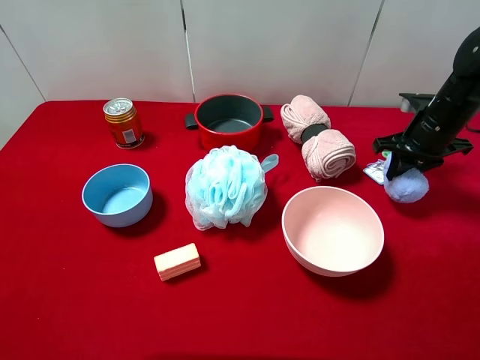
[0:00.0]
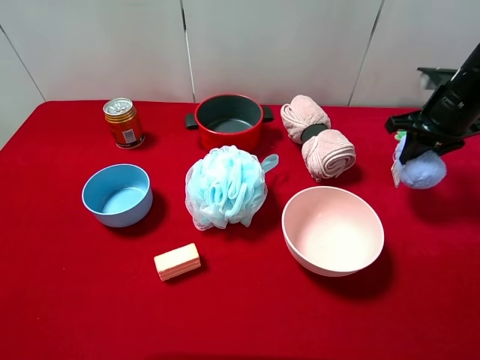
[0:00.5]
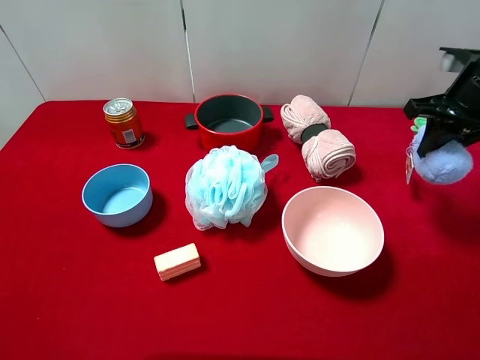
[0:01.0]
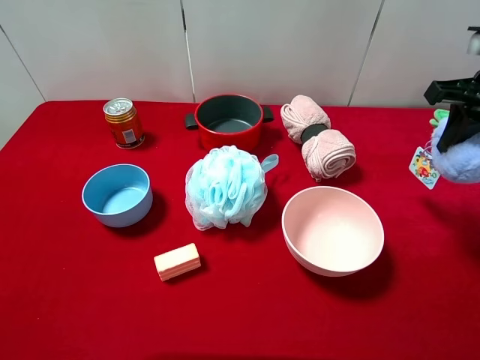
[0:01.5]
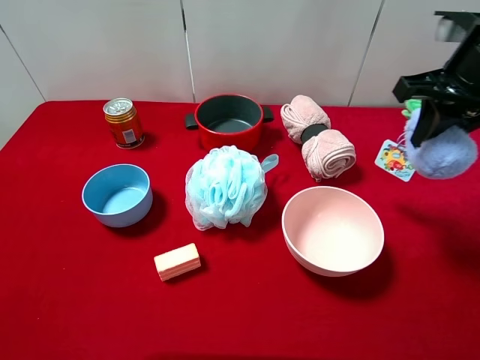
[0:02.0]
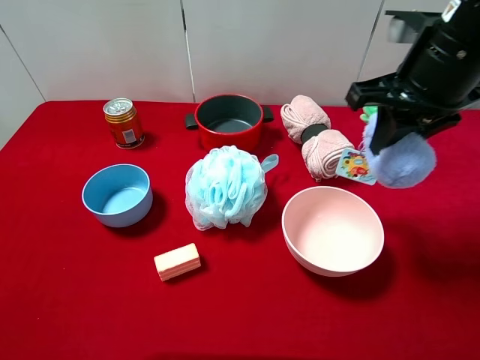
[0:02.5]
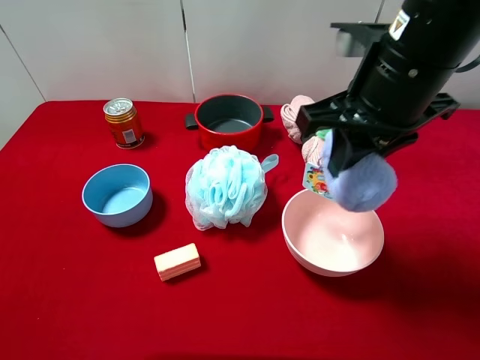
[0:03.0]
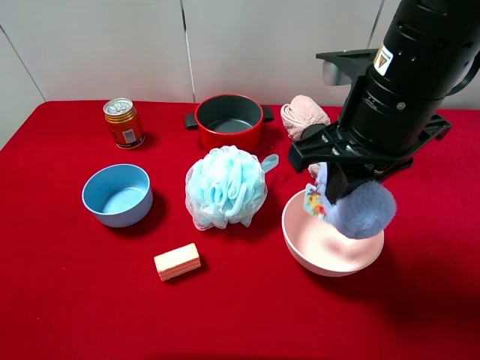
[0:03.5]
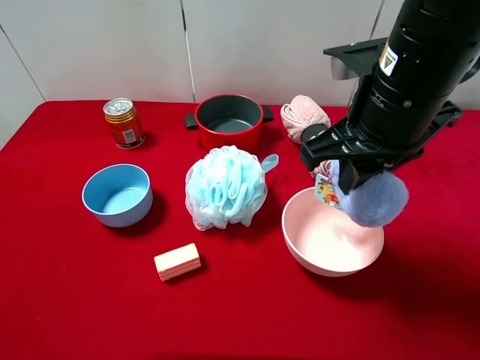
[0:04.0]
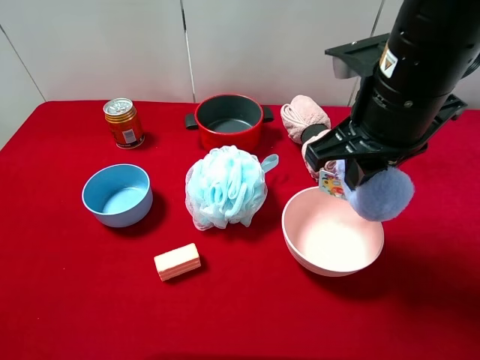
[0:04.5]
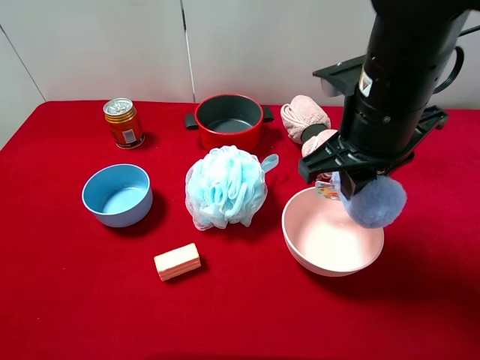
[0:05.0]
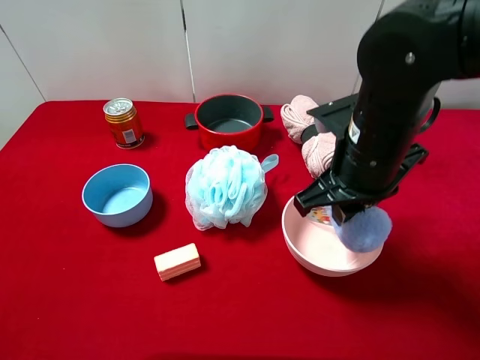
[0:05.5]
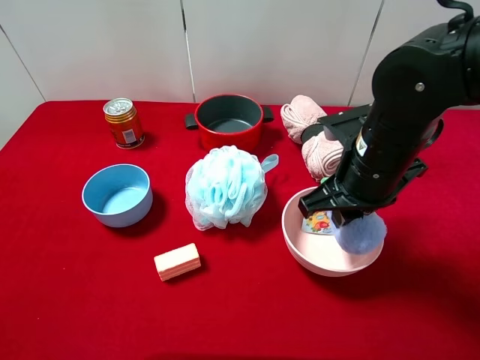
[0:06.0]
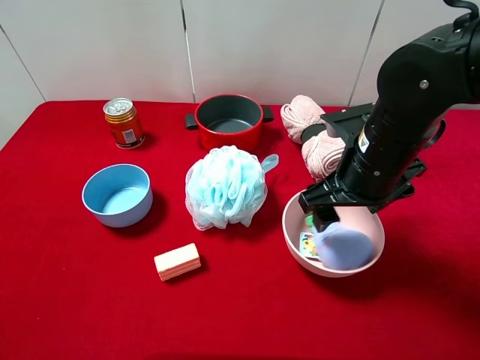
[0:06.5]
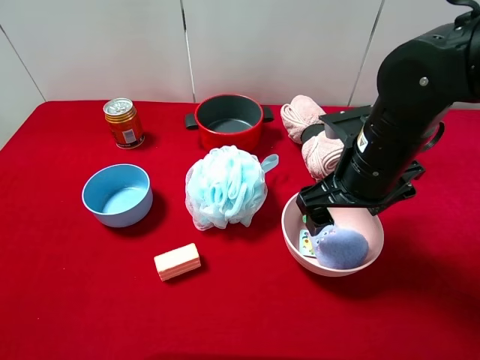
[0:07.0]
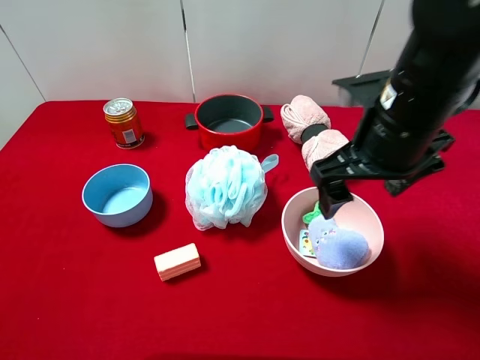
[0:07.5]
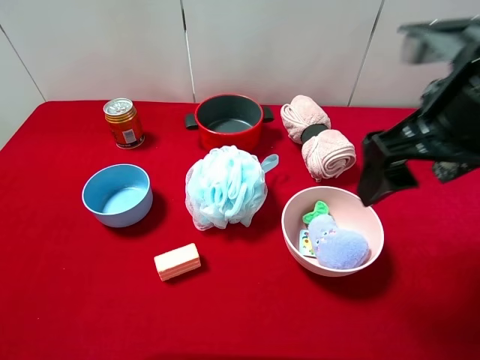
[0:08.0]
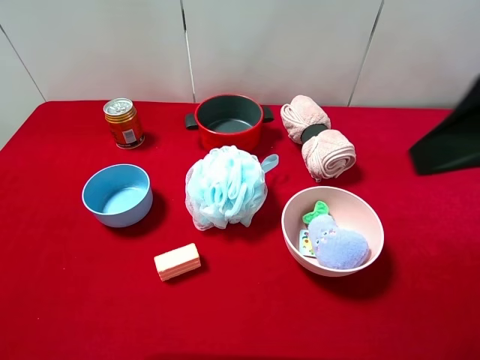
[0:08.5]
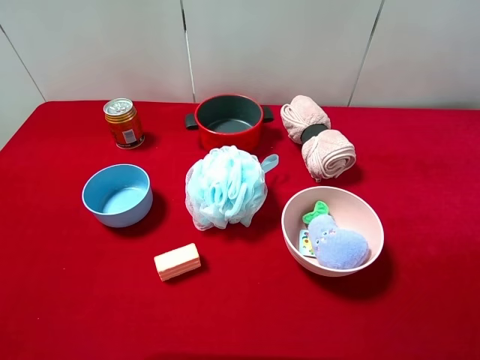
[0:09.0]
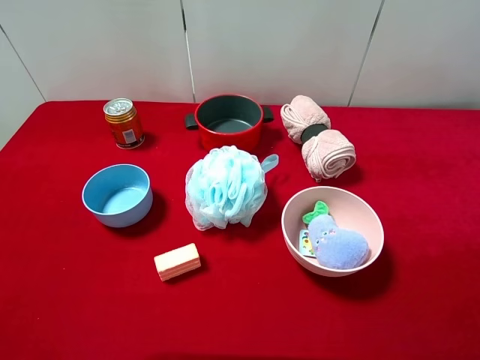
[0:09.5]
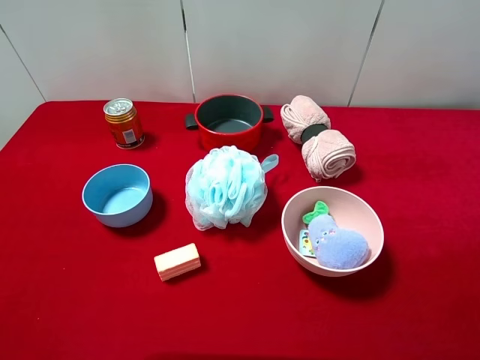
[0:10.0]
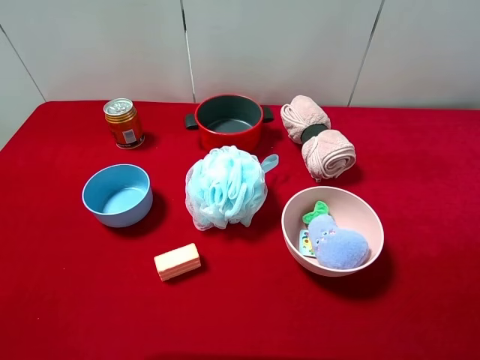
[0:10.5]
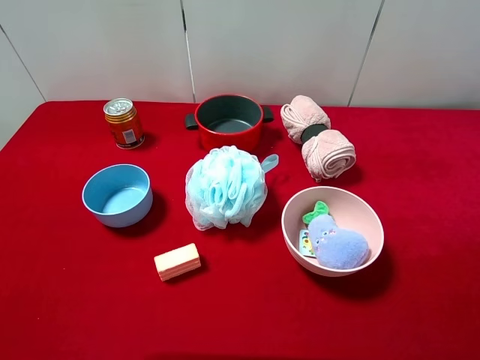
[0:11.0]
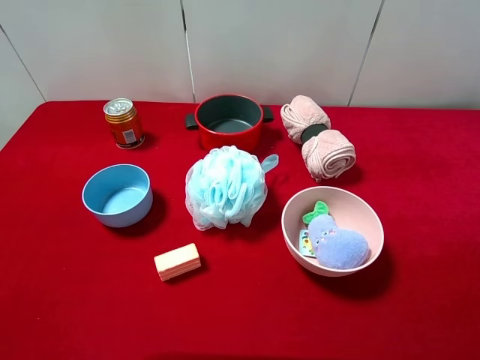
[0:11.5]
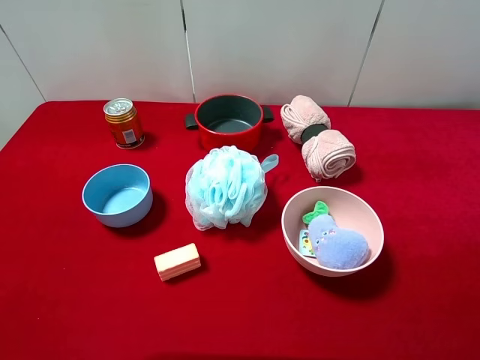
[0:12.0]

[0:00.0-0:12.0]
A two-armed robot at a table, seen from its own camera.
Task of the whole recording: pick up an item with a gripper and place it in a random container on the desktop.
0:00.0 to 0:02.0: The right gripper heads upward and backward, covering roughly 15 cm.
0:02.0 to 0:04.0: The right gripper moves to the left and backward, roughly 15 cm.
0:04.0 to 0:06.0: The right gripper moves downward, approximately 10 cm.
0:06.0 to 0:08.0: The right gripper travels upward and backward by roughly 15 cm, and opens its fingers.
0:08.0 to 0:10.0: The right gripper moves backward and to the right, roughly 20 cm.

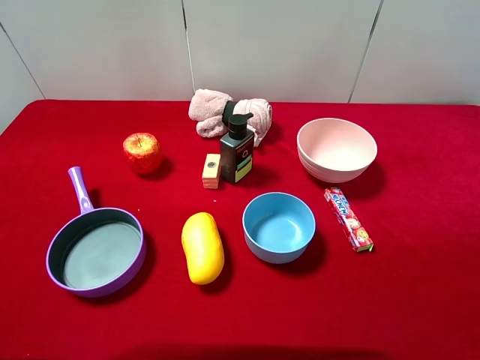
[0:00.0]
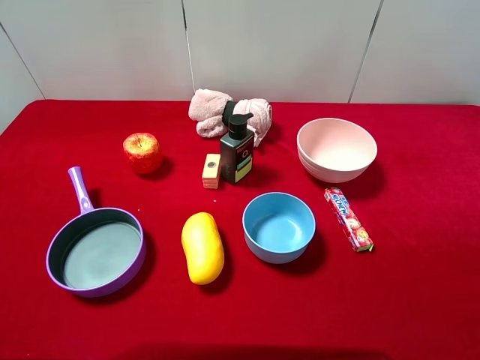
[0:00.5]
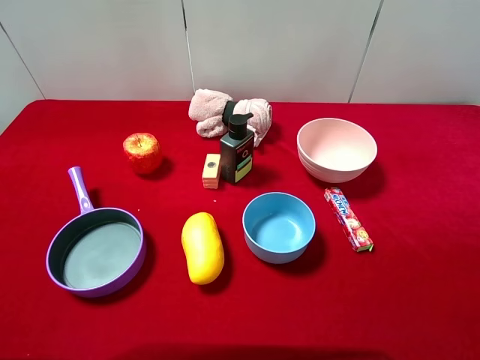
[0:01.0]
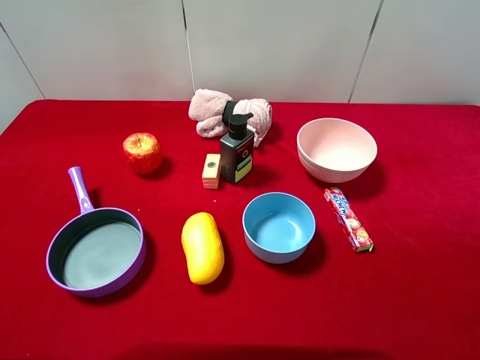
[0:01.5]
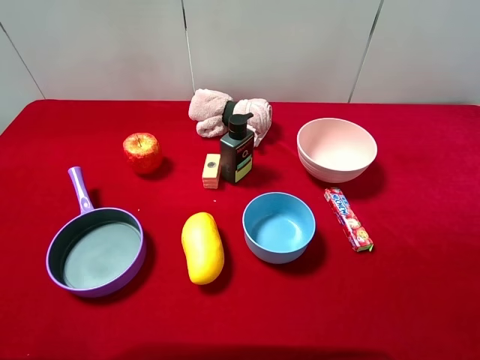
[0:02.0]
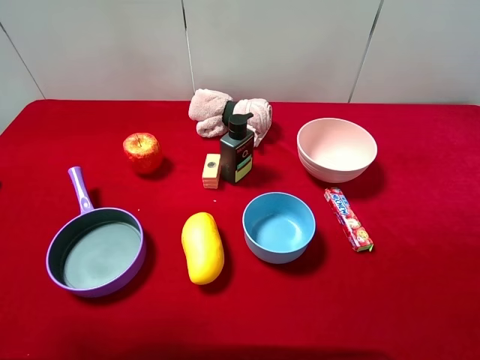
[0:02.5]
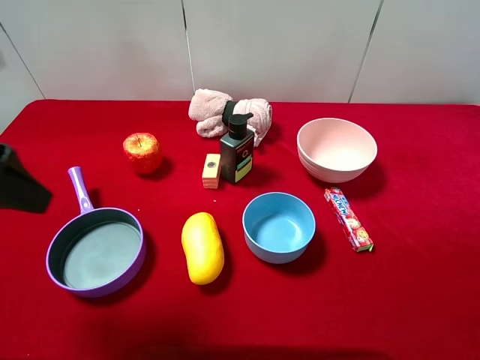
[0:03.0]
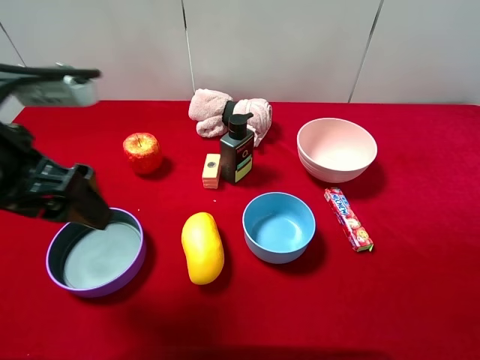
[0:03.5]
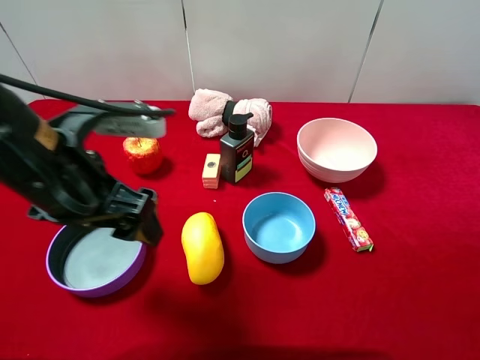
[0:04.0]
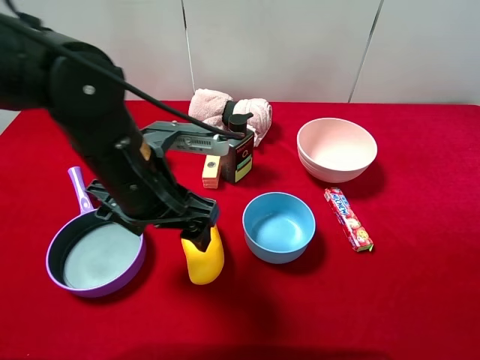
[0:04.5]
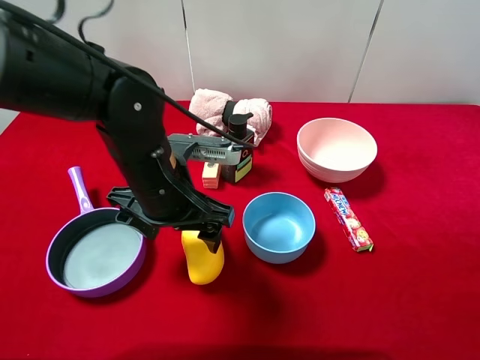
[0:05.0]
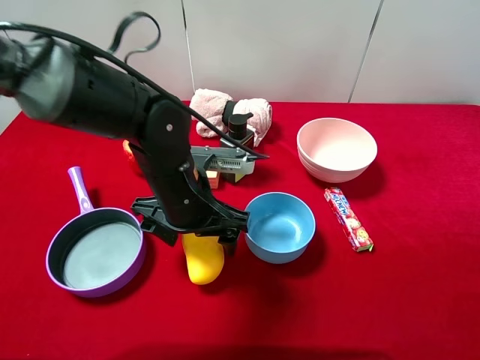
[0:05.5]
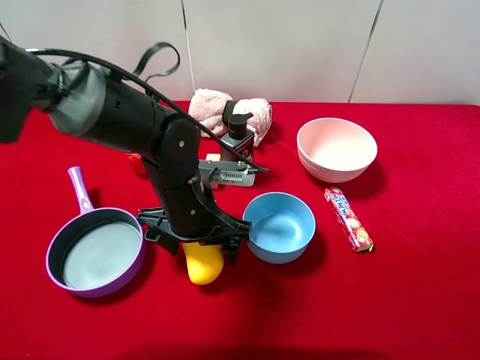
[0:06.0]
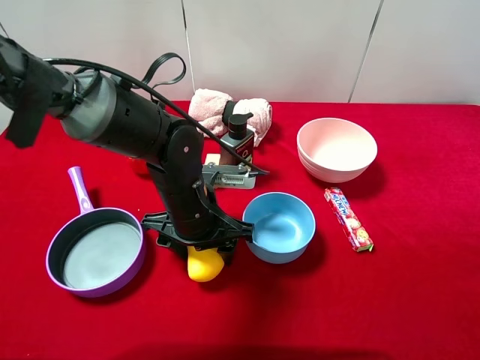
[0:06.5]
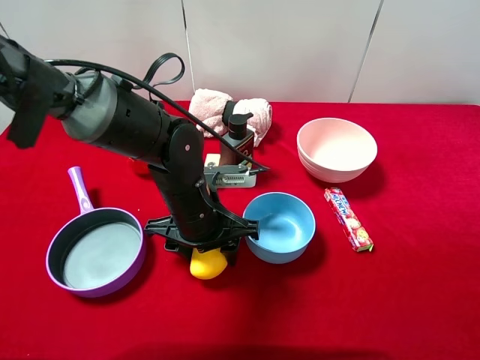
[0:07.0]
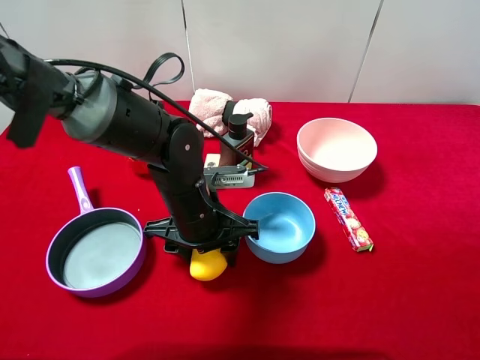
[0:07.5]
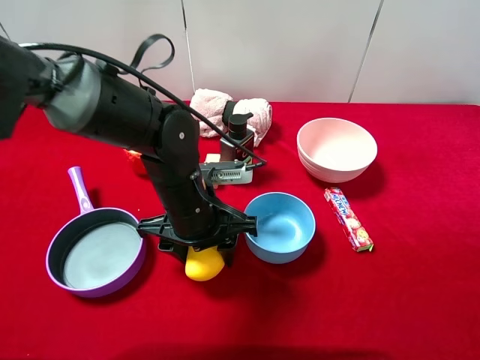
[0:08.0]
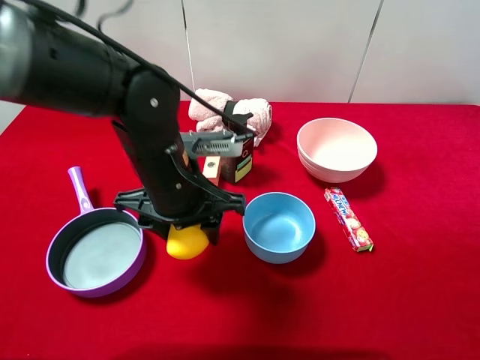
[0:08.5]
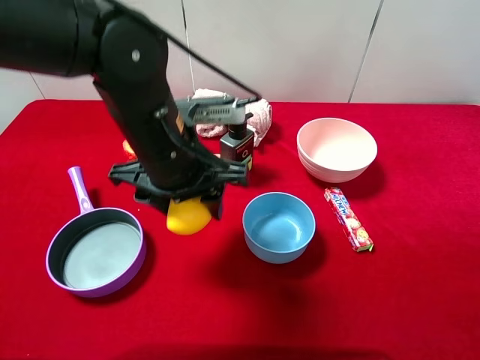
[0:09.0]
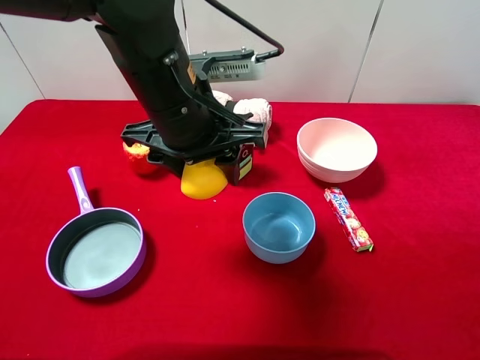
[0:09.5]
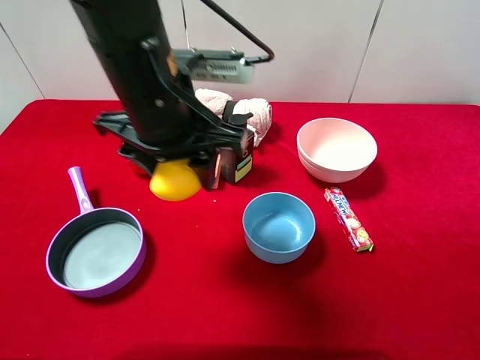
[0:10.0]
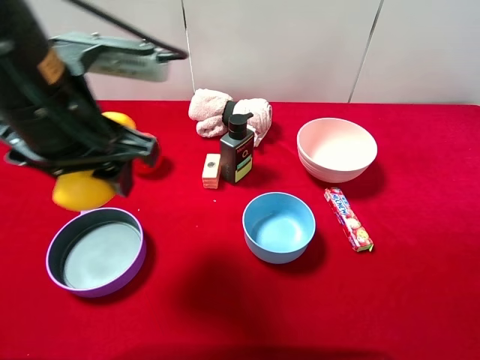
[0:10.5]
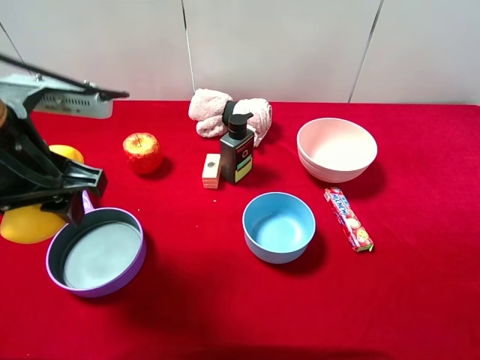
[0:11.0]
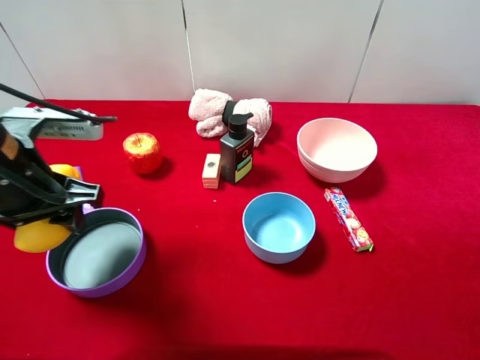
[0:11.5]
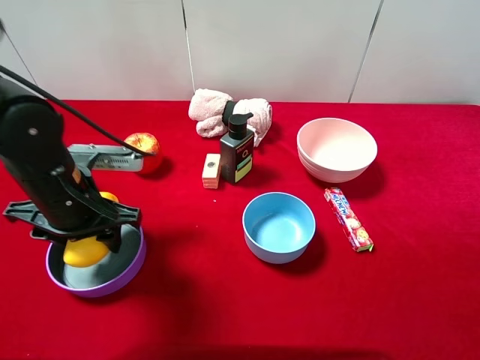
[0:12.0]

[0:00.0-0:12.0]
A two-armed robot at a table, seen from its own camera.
Task of the whole recording: pick up an item with a gripper and place it in a random container on the desktop.
0:02.0 to 0:04.0: The left gripper heads to the right, forward and downward, covering some 20 cm.
0:04.0 to 0:06.0: The left gripper is displaced downward, to the right and forward by approximately 15 cm.
0:06.0 to 0:08.0: The left gripper closes up.
0:08.0 to 0:10.0: The left gripper is displaced upward by about 15 cm.
0:10.0 to 0:12.0: The left gripper goes roughly 15 cm downward and to the left.

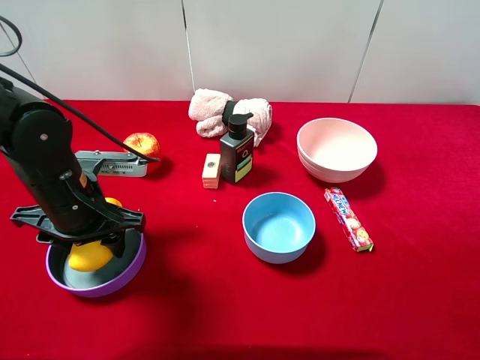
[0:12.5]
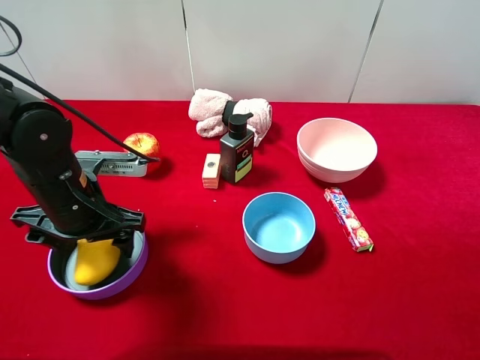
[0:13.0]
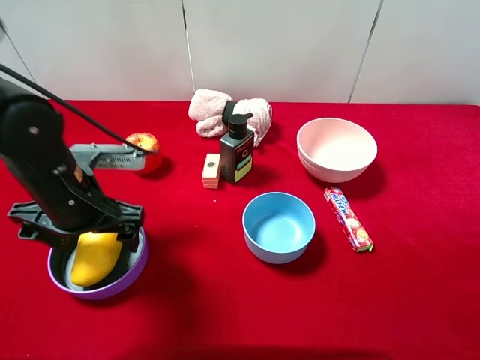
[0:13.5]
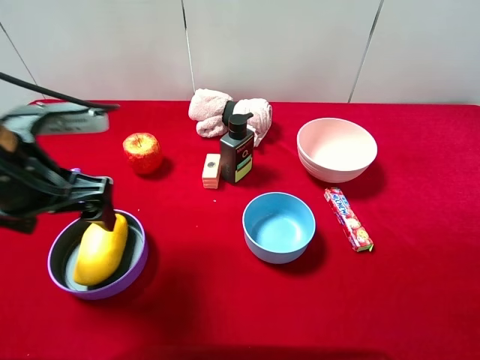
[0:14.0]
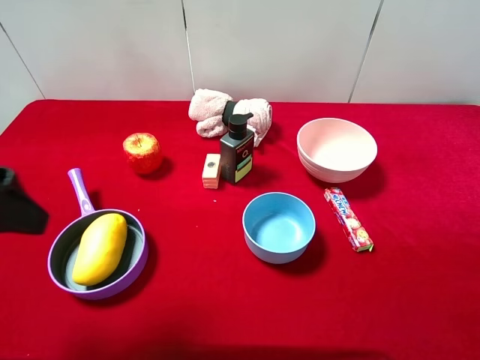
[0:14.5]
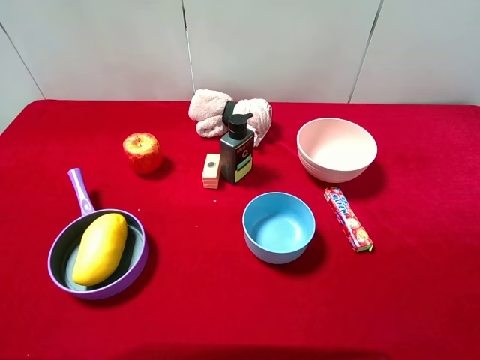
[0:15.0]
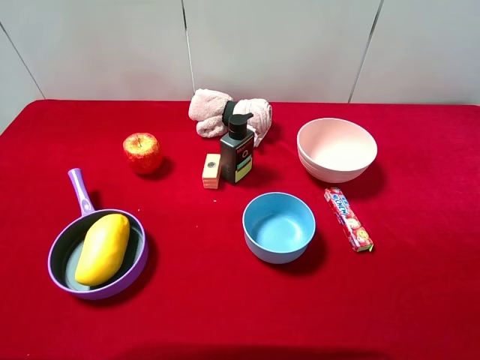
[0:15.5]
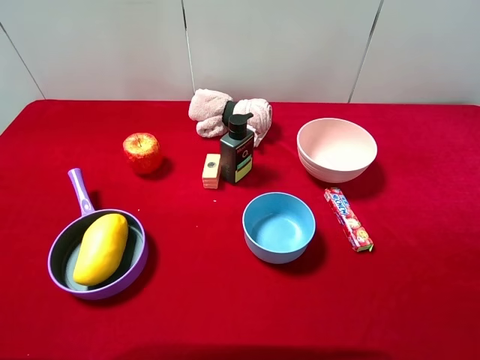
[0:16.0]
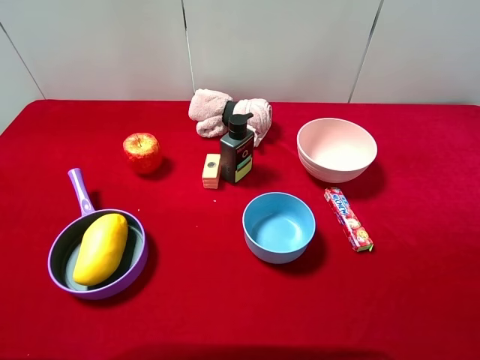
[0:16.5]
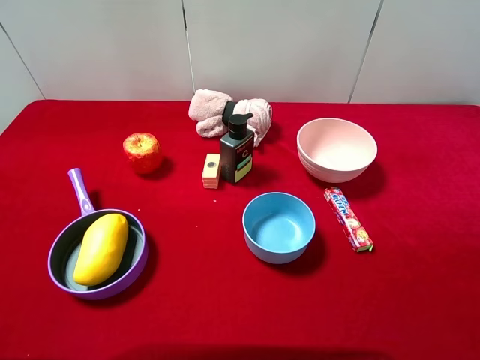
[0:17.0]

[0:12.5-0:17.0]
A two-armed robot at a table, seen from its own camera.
Task of the whole recording: pick up an item with a gripper and place it in a random container on the desktop.
0:12.5 to 0:14.5: The left gripper heads upward and backward, covering about 20 cm, and opens up.
0:14.5 to 0:17.0: The left gripper shifts about 15 cm backward and to the left.
